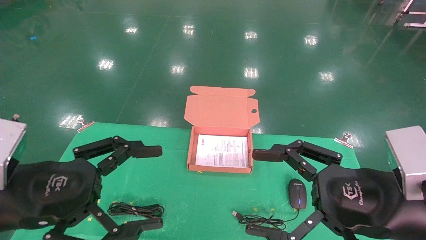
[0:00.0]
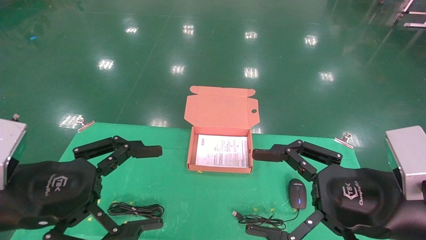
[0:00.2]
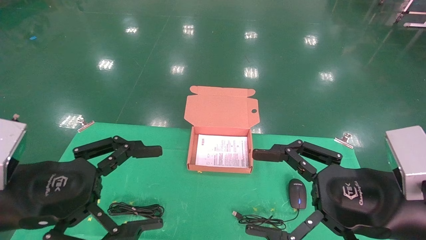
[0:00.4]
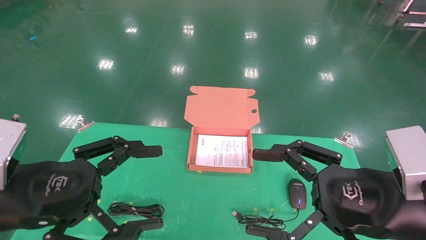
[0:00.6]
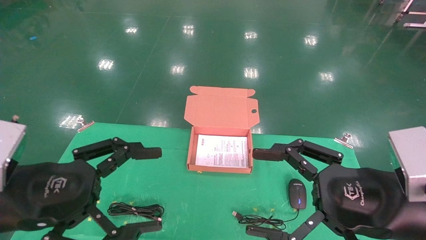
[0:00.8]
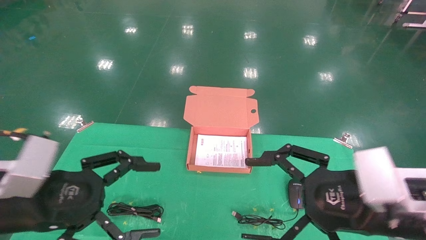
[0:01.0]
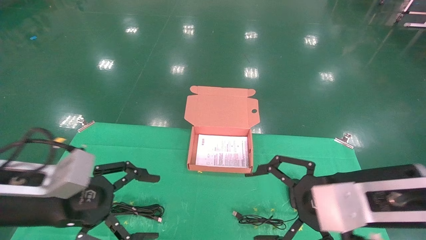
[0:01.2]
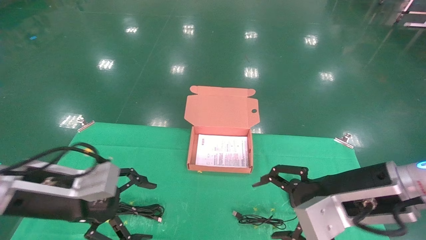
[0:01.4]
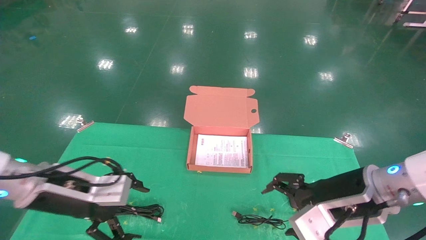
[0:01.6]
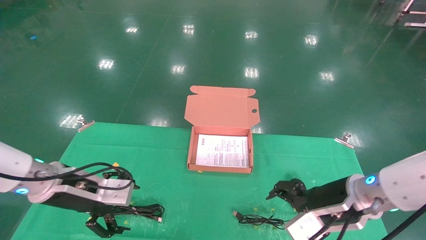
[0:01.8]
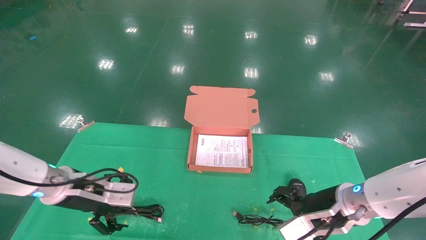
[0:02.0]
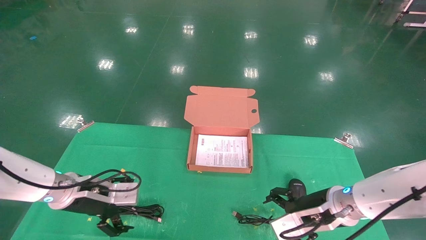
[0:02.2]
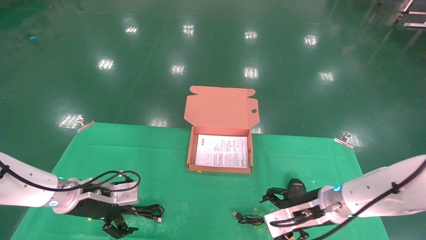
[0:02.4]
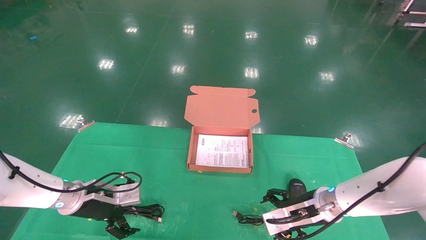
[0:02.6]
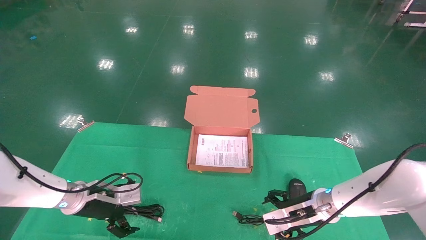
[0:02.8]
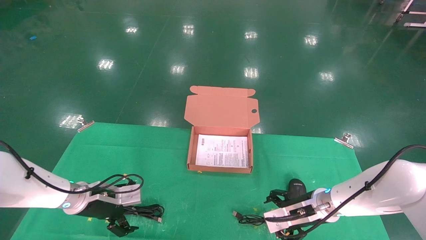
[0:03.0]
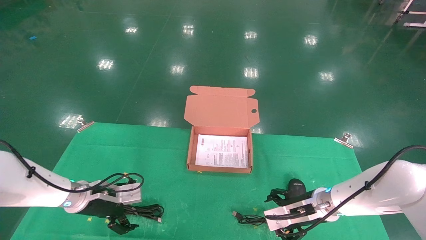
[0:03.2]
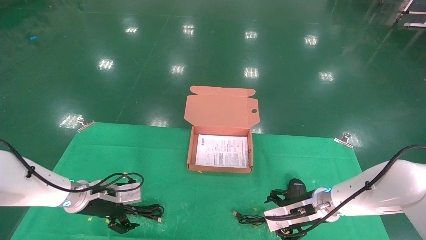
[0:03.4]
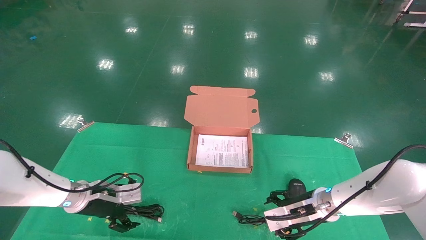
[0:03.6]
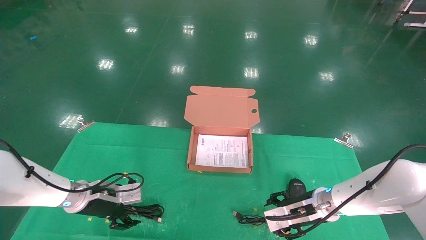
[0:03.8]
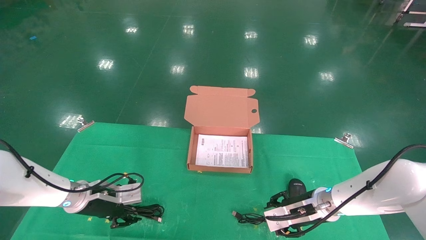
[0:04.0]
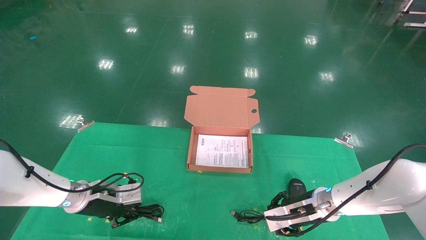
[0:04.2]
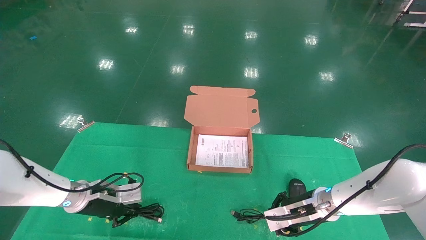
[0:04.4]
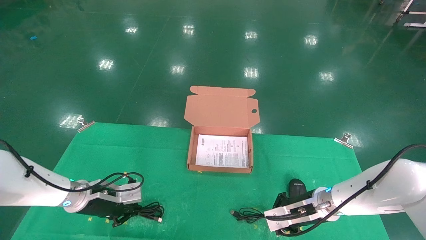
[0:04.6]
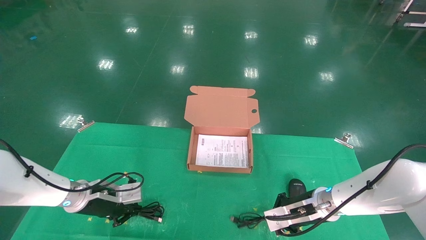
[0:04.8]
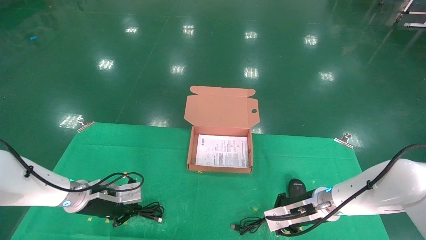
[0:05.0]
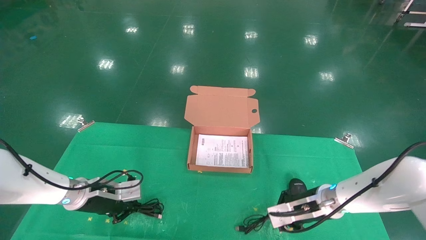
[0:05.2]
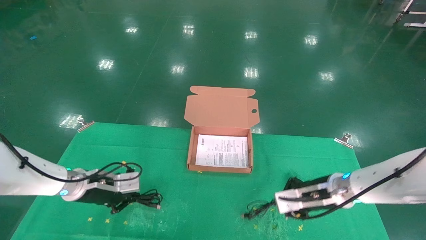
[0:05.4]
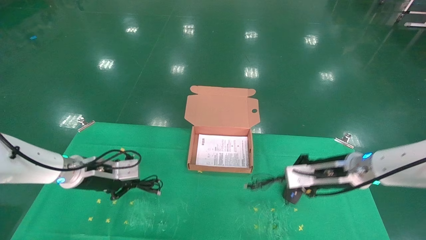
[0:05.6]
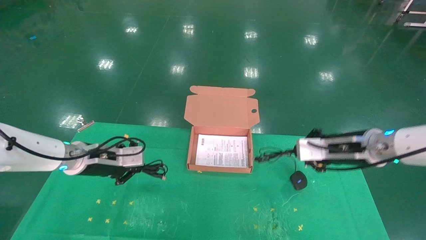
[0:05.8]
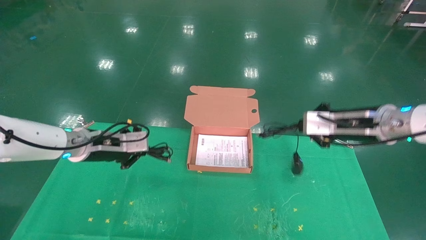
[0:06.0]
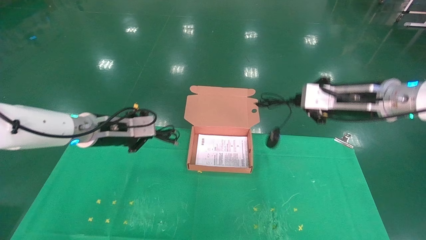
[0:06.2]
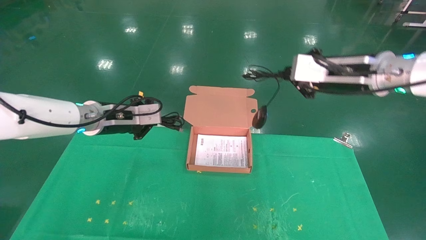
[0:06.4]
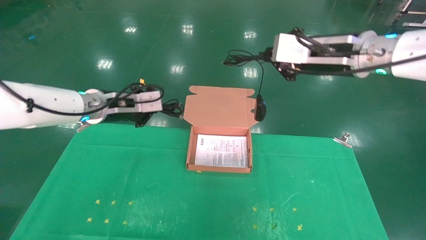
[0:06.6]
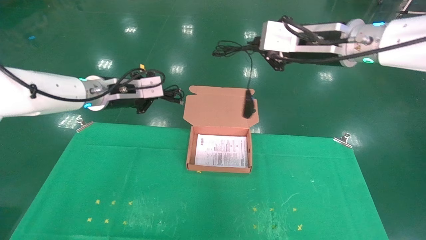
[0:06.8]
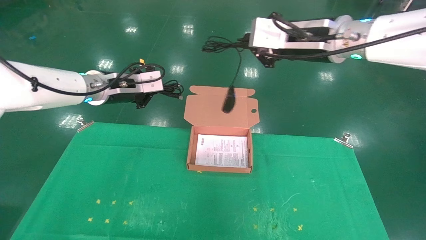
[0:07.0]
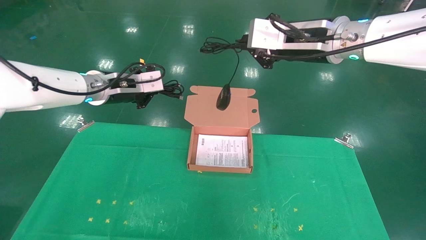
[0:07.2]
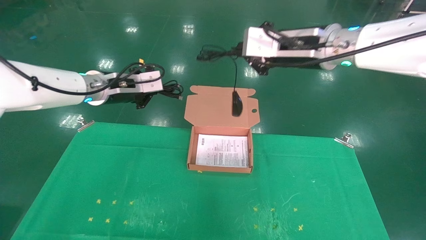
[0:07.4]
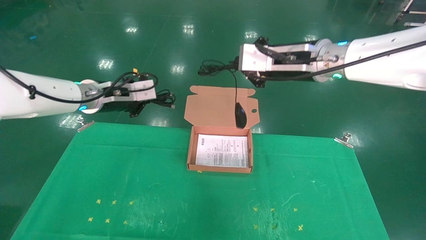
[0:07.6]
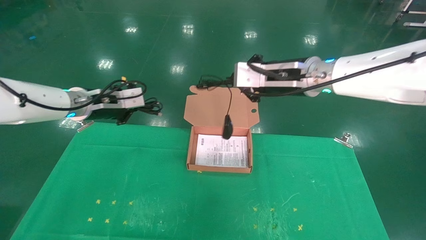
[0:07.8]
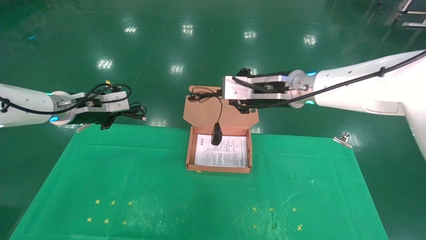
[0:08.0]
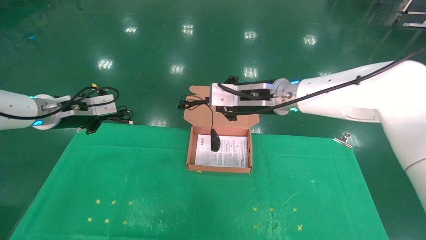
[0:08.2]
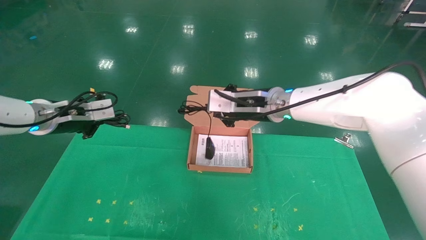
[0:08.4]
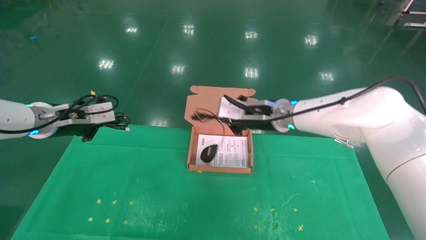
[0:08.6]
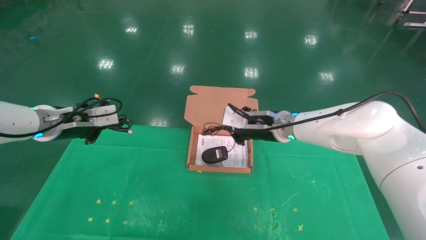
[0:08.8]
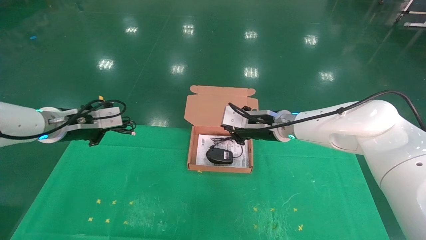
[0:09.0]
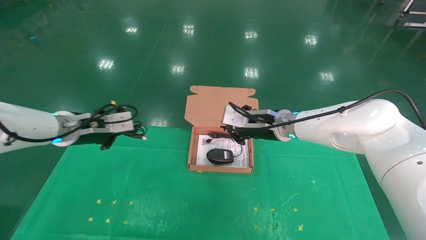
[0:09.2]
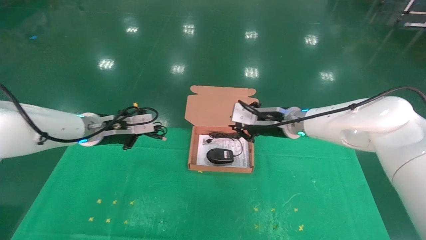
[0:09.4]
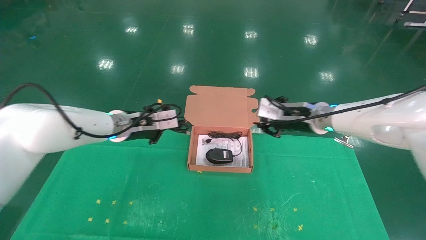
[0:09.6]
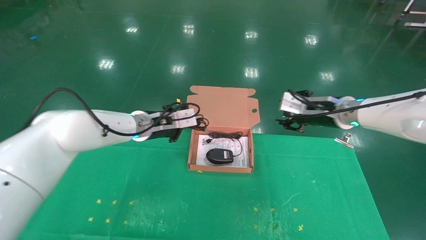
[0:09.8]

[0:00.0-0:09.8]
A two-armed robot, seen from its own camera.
Task of the whole recording: grasp data cable left put into box grasp mouse right put into box.
Step, 0:01.0 to 0:05.2: Grab and pick up both the mouse and power cord from the accessory packaging area at the same time.
0:00.0 to 0:01.4: Both grippers travel together forward, some 5 cm.
0:01.4 to 0:02.8: The grippers both shift forward and downward by roughly 20 cm.
0:02.8 to 0:04.2: The right gripper closes its fingers, while the left gripper closes its fingers.
0:04.2 to 0:05.6: The right gripper heads upward and to the right, covering roughly 15 cm, and closes its fingers. Meanwhile the left gripper goes roughly 10 cm upward, and closes.
0:05.6 to 0:07.0: The right gripper goes roughly 25 cm upward and to the left. Meanwhile the left gripper goes roughly 15 cm upward.
0:07.0 to 0:08.4: The left gripper travels to the left and downward by roughly 10 cm. Meanwhile the right gripper is displaced downward, forward and to the left by roughly 15 cm.
0:08.4 to 0:09.8: Both grippers travel together to the right, roughly 15 cm.

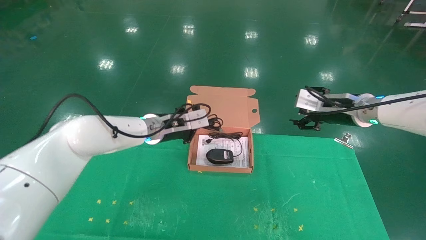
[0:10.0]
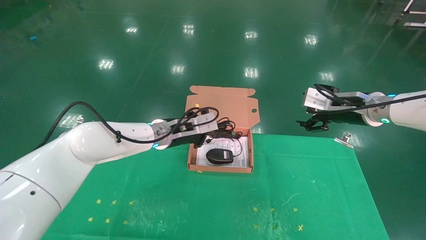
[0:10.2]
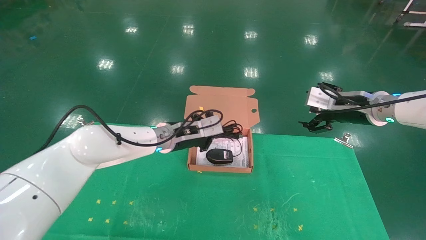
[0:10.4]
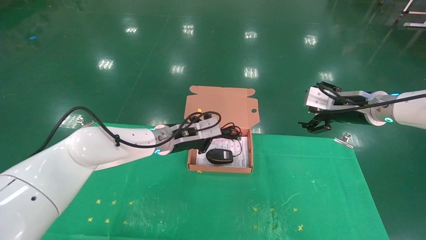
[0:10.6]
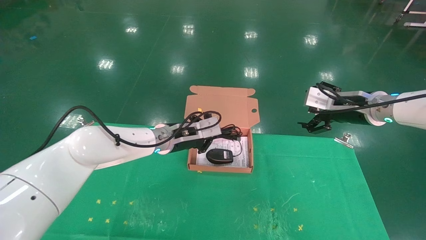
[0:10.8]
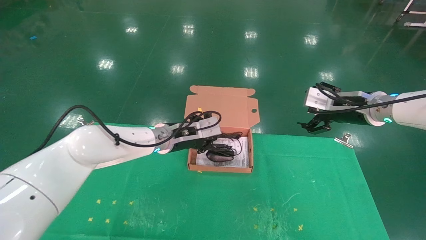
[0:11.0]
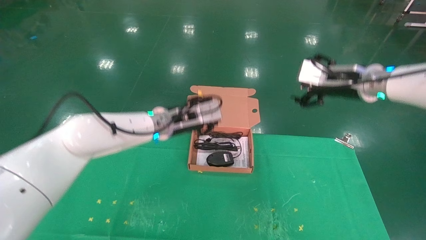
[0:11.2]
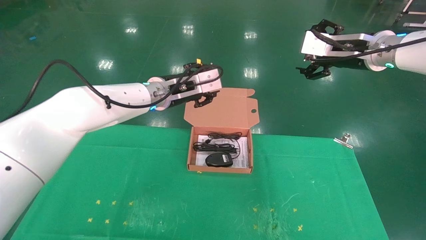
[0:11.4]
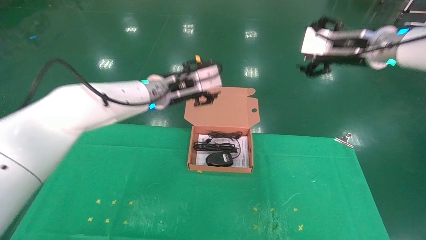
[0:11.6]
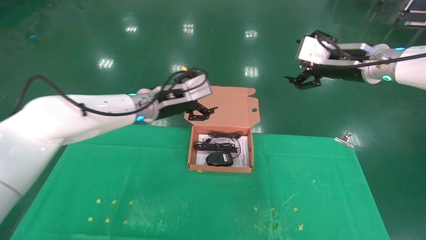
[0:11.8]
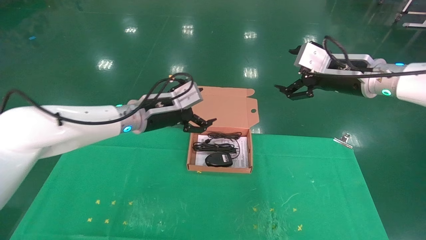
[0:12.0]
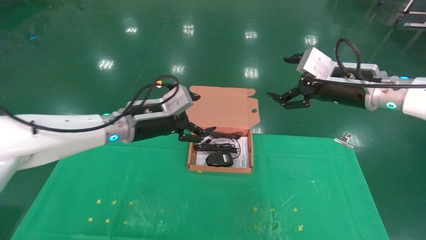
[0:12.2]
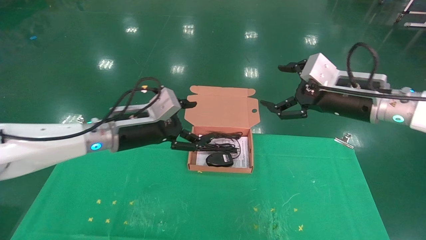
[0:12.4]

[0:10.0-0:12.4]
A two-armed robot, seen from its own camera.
Task of the whole recording: grasp data cable left put into box grasp mouse right put into box.
0:10.0 to 0:11.2: The right gripper shifts some 5 cm upward, and opens. The left gripper shifts by roughly 5 cm.
0:11.2 to 0:12.4: The left gripper moves to the left and backward, roughly 10 cm, and opens up. The right gripper heads backward, covering about 5 cm.
